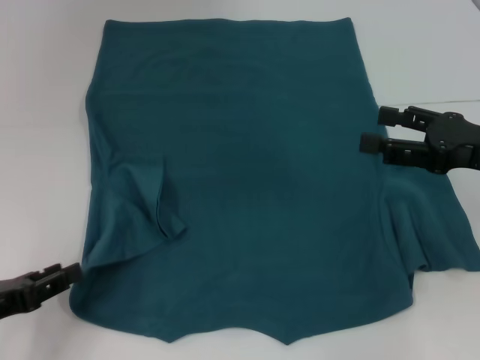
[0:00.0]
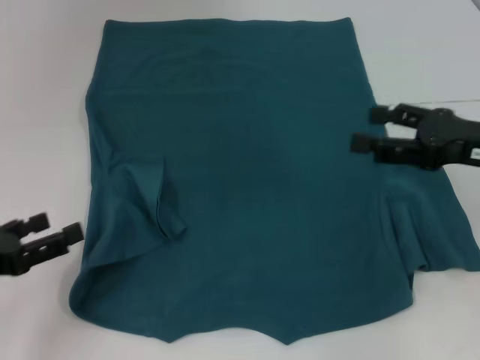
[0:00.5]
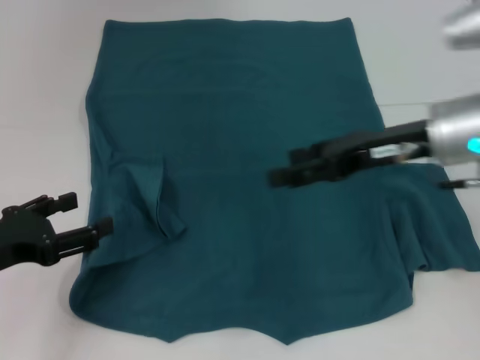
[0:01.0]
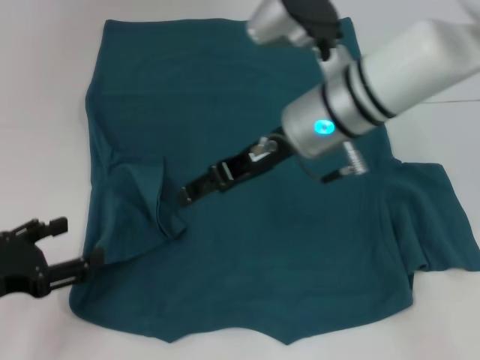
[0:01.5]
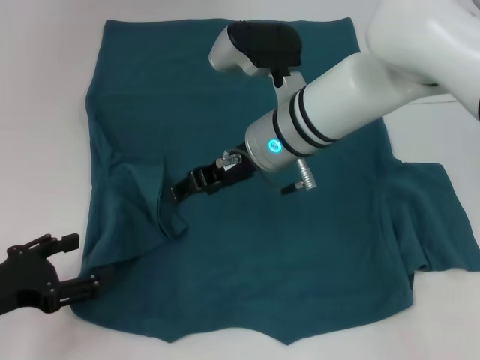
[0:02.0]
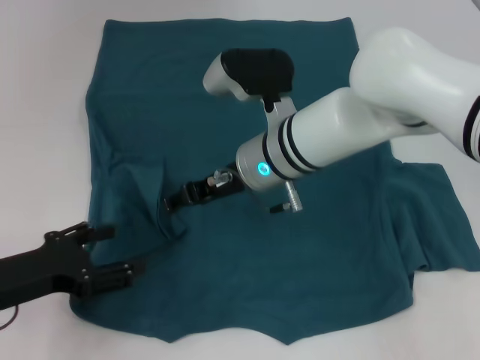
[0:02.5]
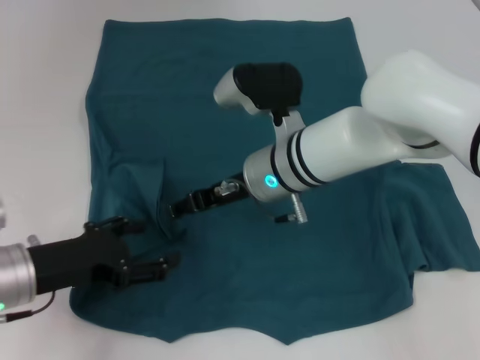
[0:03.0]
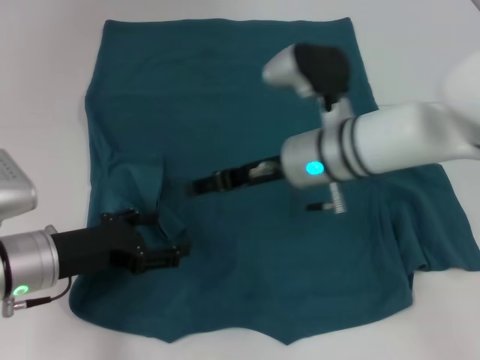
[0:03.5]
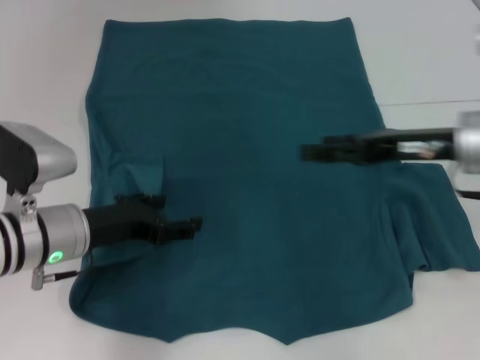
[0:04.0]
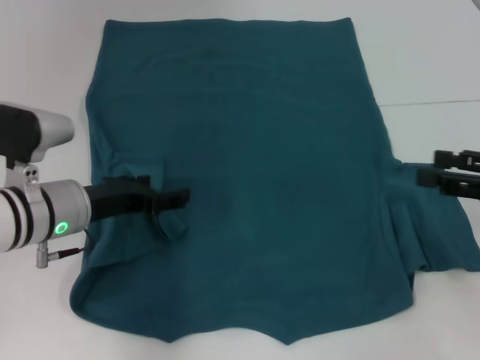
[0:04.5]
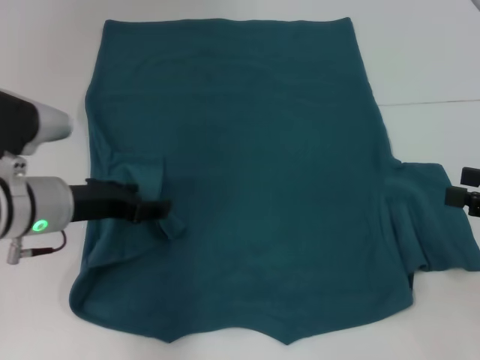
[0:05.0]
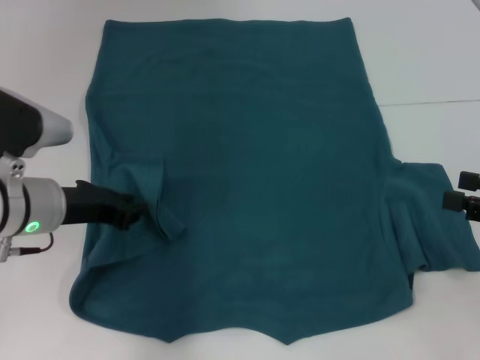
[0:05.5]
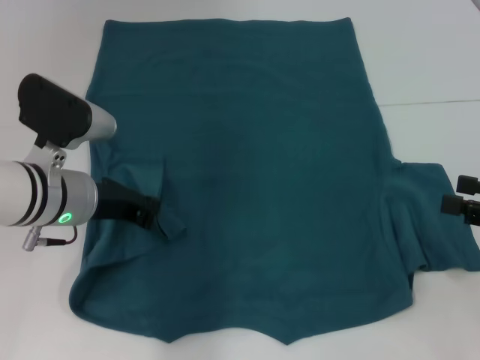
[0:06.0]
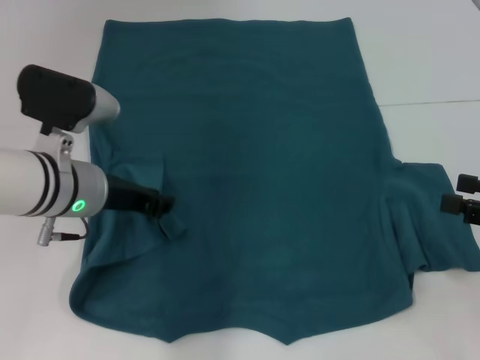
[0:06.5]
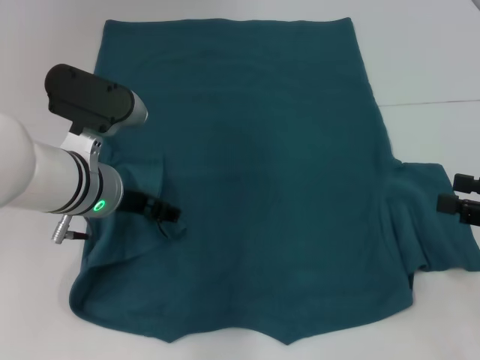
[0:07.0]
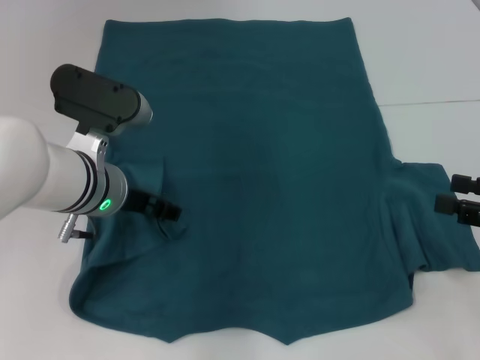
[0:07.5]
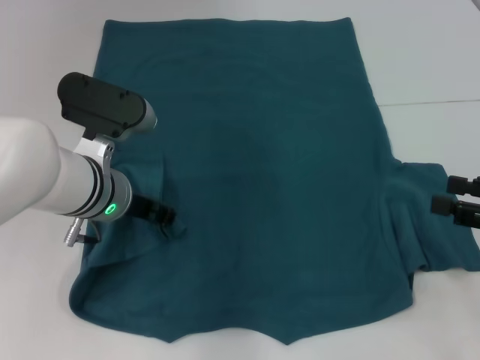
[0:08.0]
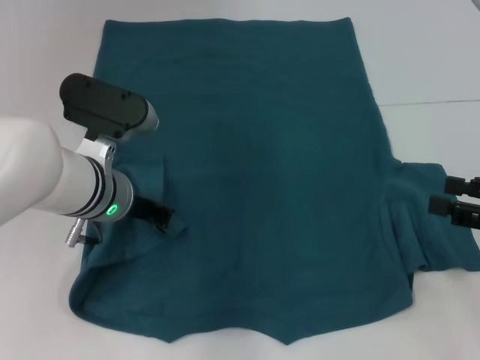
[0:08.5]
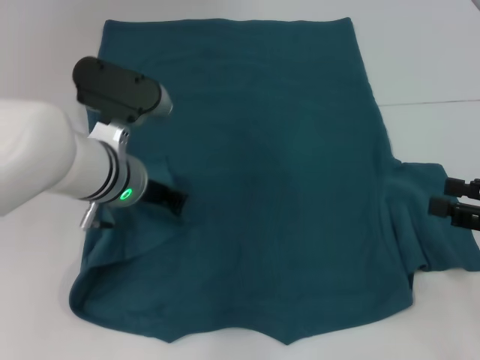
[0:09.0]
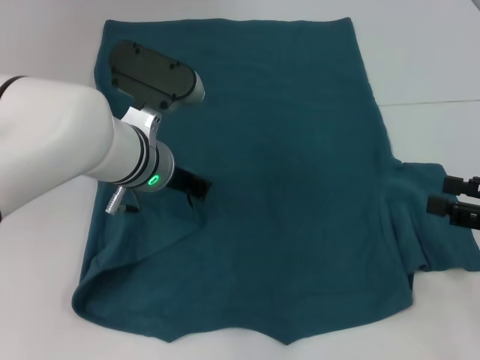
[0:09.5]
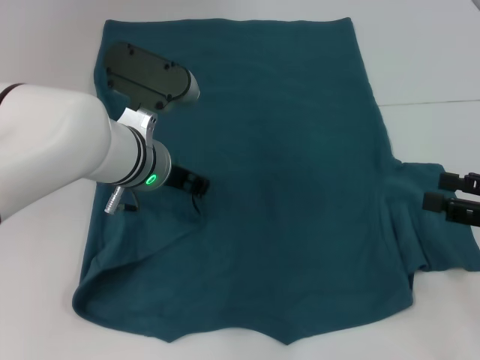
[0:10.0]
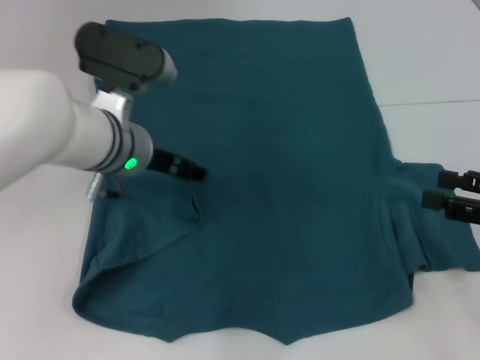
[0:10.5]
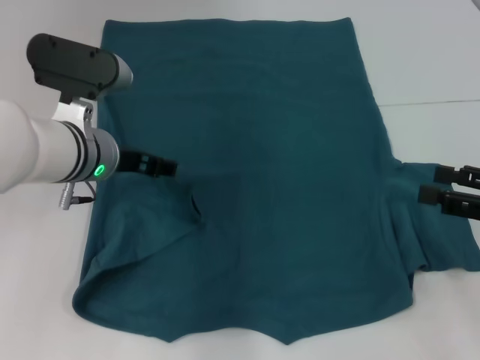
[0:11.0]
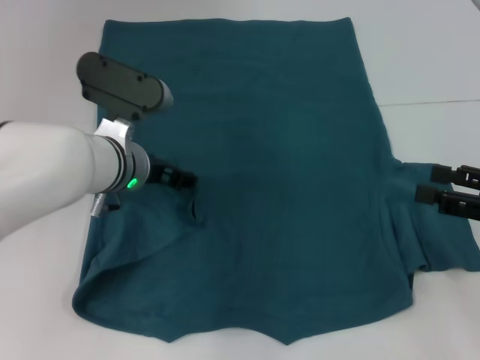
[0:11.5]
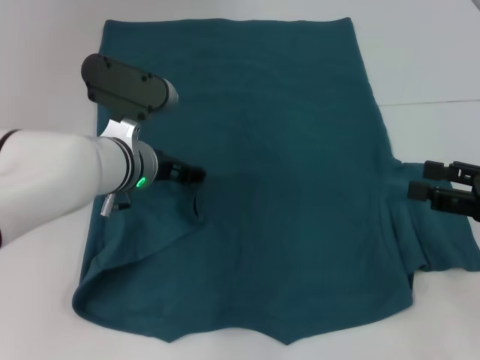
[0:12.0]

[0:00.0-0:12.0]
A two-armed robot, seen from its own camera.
0.0 to 2.0 s: The left gripper opens up; the right gripper travels to the left and forward by about 25 cm.
2.0 to 4.0 s: The left gripper shifts about 15 cm to the right and forward; the right gripper goes about 20 cm to the right.
4.0 to 6.0 s: The left gripper closes its fingers. Meanwhile the right gripper heads to the right and backward, covering roughly 15 cm.
6.0 to 8.0 s: The left gripper opens up.
8.0 to 10.0 s: The left gripper closes.
10.0 to 12.0 s: The left gripper opens its fingers.

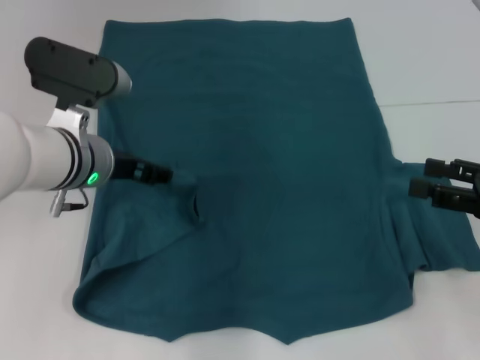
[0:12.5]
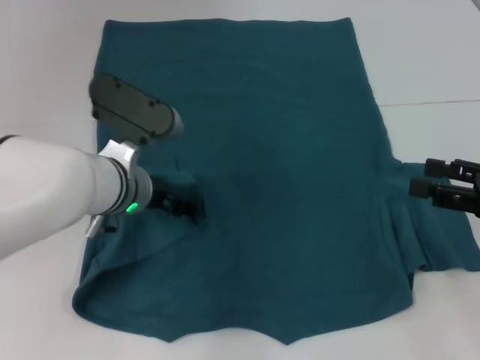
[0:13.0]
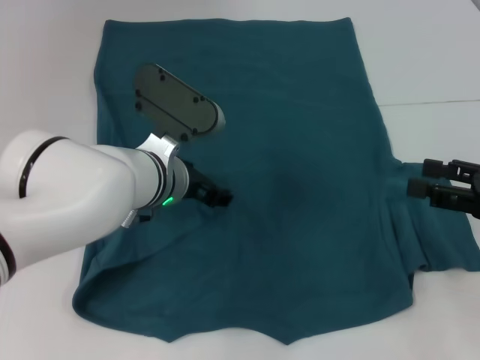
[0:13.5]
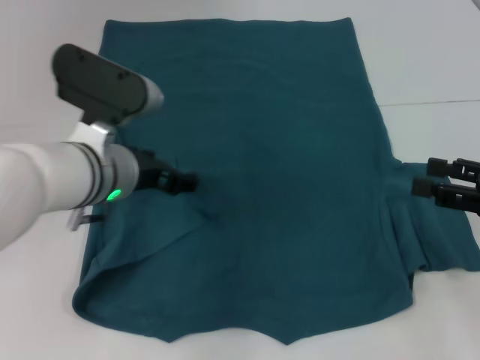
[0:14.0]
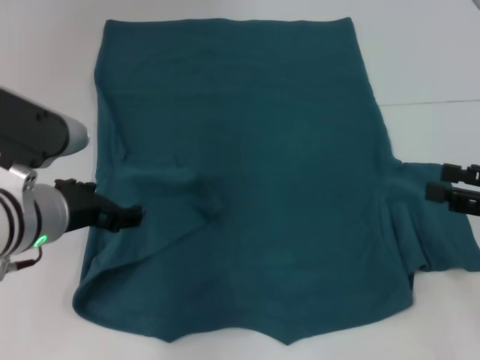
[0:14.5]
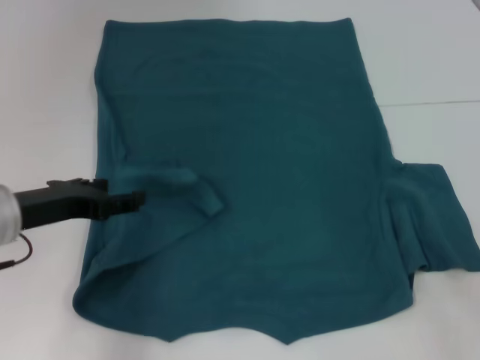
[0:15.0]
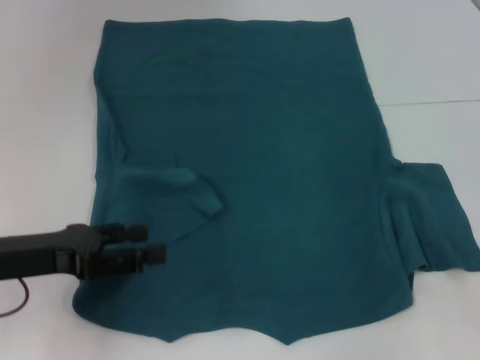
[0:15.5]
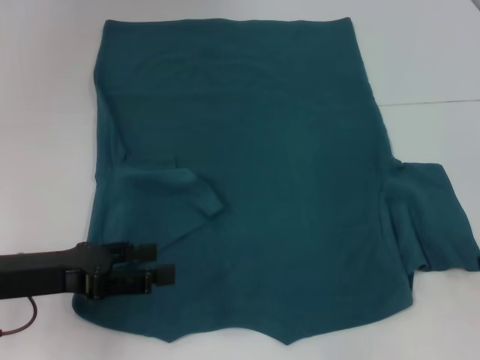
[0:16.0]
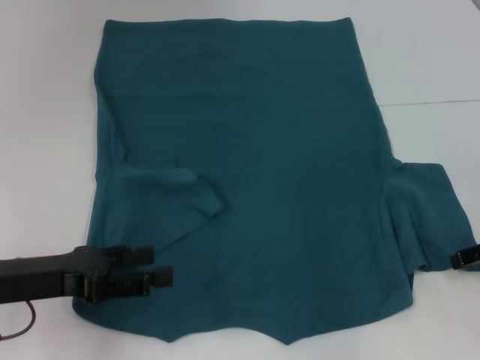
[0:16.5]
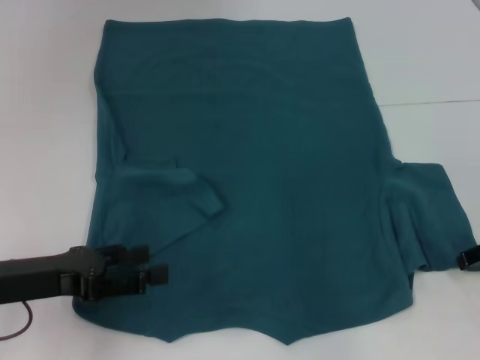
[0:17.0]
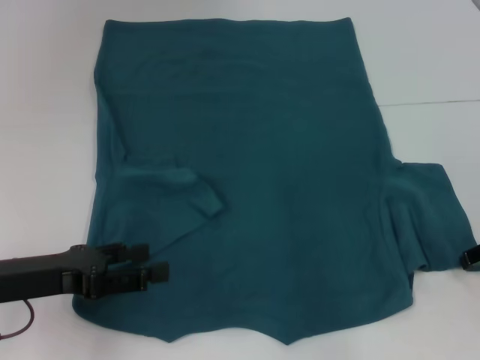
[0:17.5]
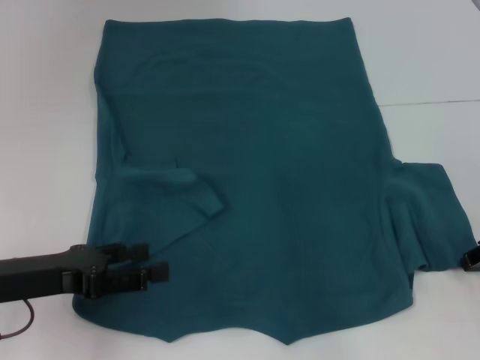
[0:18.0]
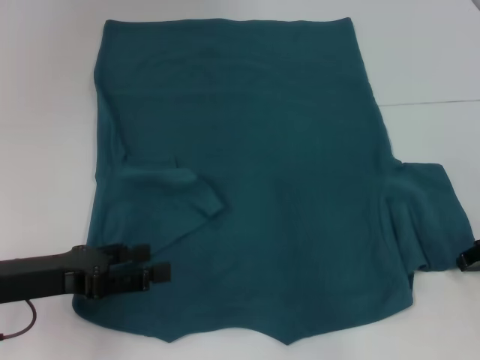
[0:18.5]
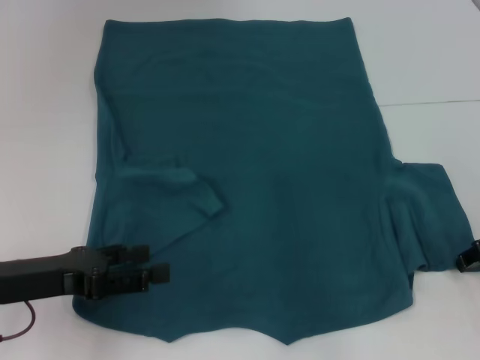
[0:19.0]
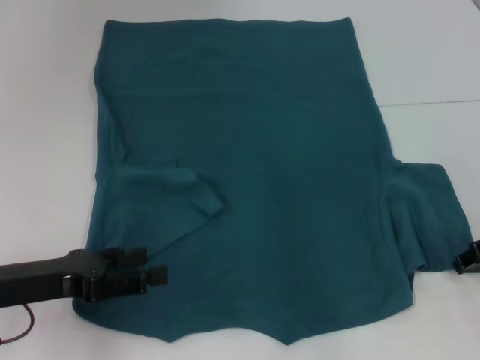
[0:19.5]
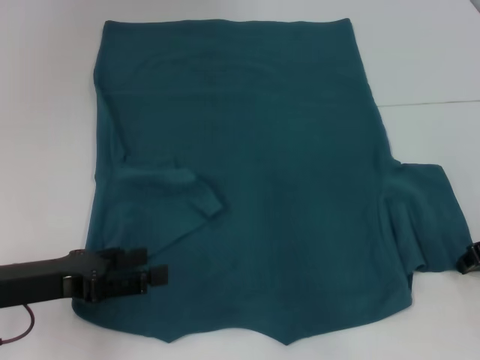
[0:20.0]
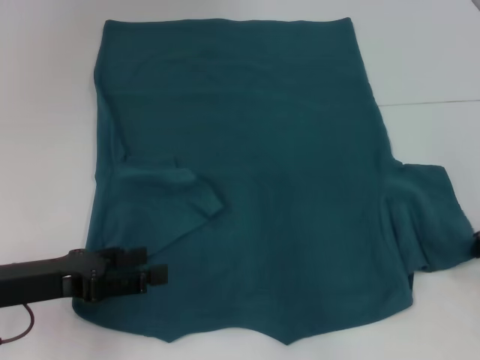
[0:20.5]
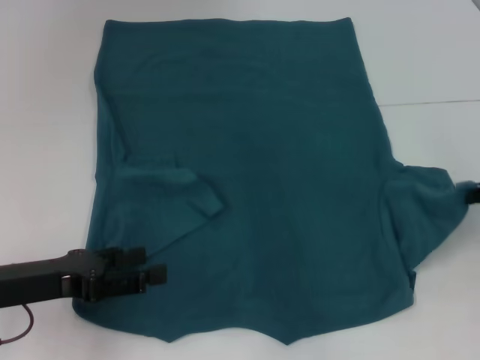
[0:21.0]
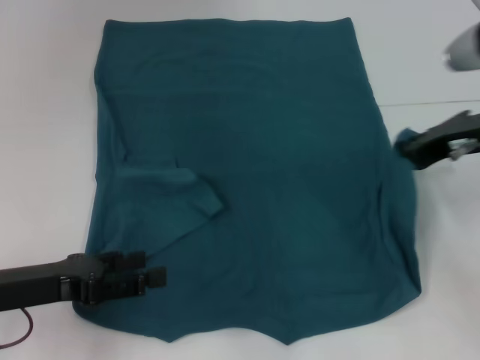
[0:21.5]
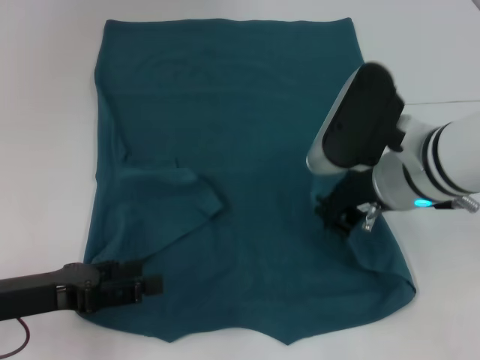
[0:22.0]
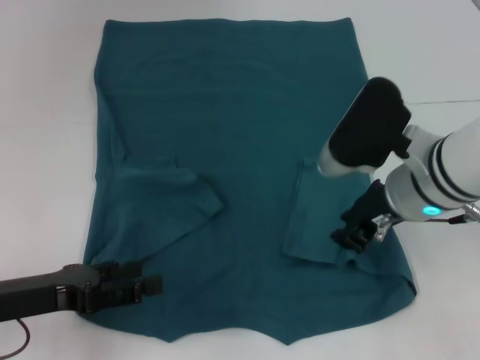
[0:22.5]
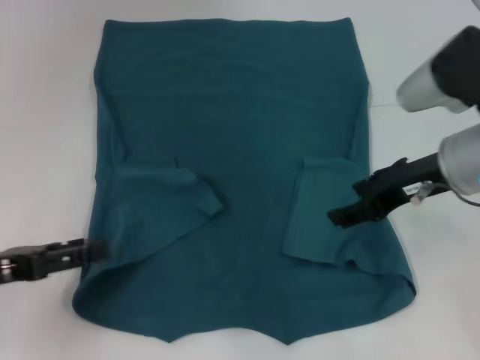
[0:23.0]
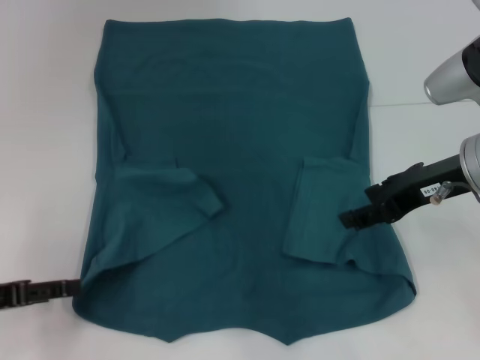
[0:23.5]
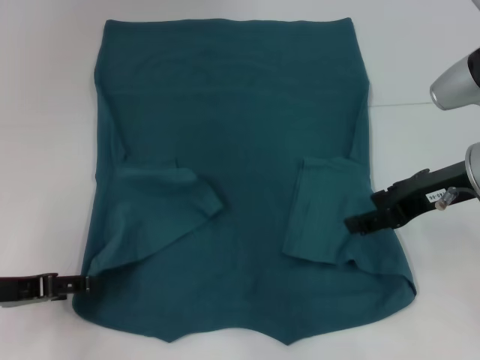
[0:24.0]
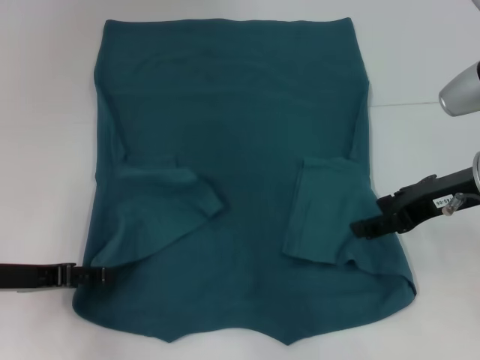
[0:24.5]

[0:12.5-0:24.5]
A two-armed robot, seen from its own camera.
Step, 12.5 to 22.5 s: Fold the bottom right sleeve to the right.
12.5 to 14.5 s: The left gripper heads backward, covering about 5 cm, and goes to the right and returns, roughly 5 cm each way.
14.5 to 16.5 s: The right gripper heads forward, covering roughly 5 cm; the left gripper heads to the left, covering some 10 cm.
20.5 to 22.5 s: The right gripper heads to the left, covering some 15 cm.
22.5 to 24.5 s: The right gripper is displaced to the right by about 10 cm, and opens its fingers.

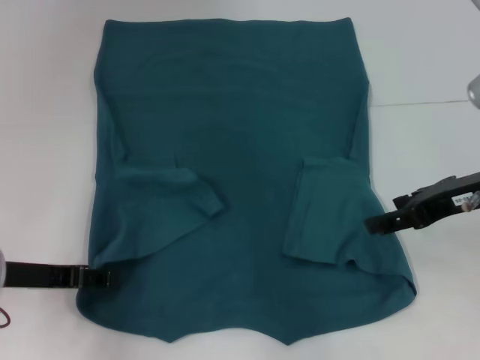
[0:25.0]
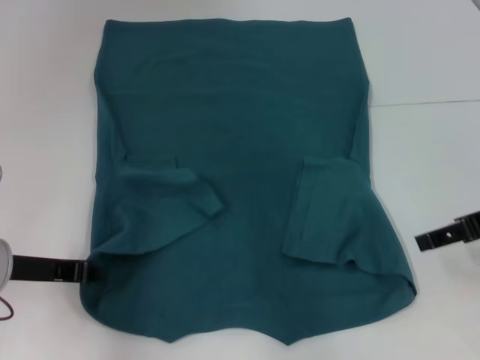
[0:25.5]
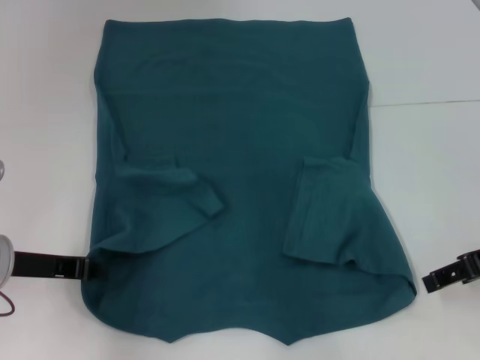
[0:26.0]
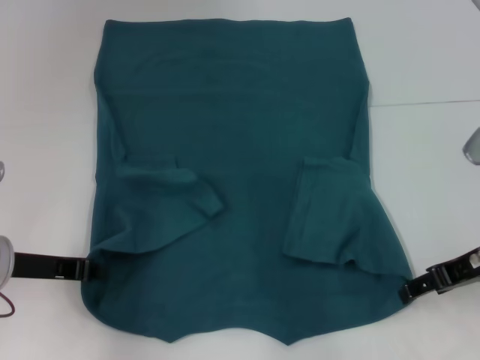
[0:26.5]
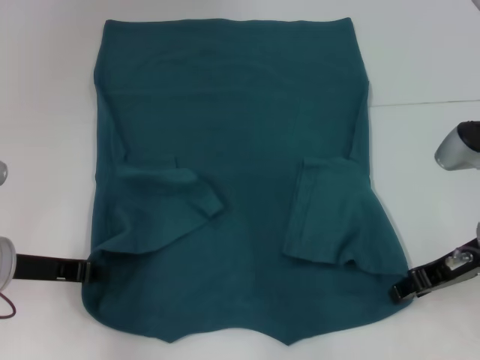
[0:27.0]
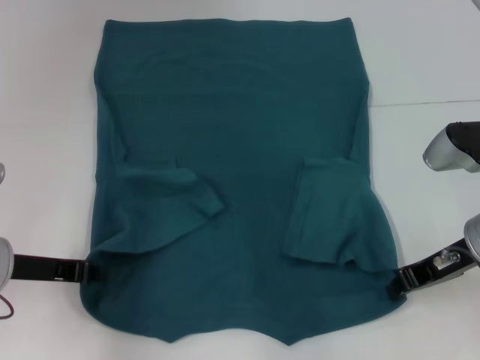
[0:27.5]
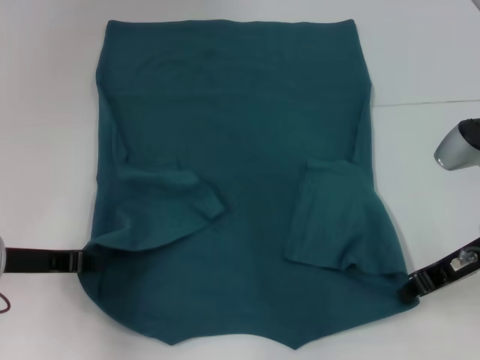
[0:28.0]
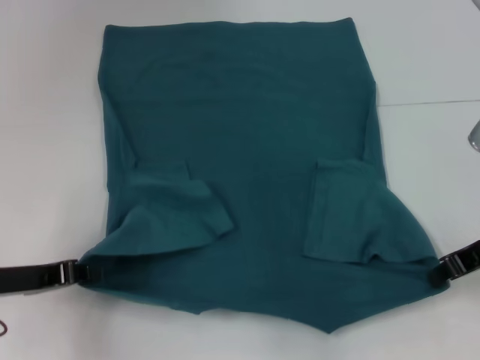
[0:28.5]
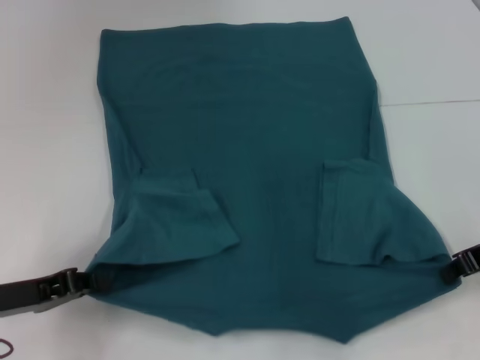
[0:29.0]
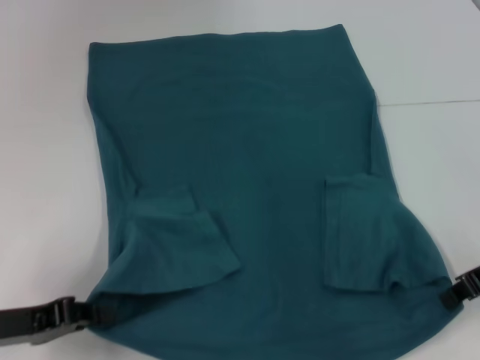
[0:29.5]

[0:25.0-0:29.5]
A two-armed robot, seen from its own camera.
Step, 26.0 to 27.5 s: Grab the bottom right corner with your right hand.
25.0 to 27.0 s: The right gripper goes some 5 cm downward, while the left gripper closes.
27.0 to 29.5 s: The left gripper heads backward, covering some 10 cm. Meanwhile the right gripper closes its fingers.
